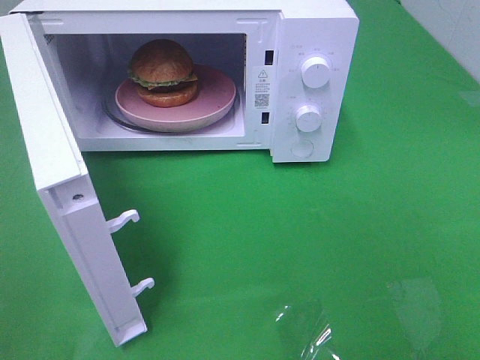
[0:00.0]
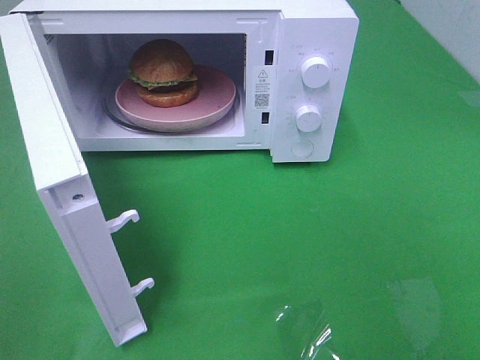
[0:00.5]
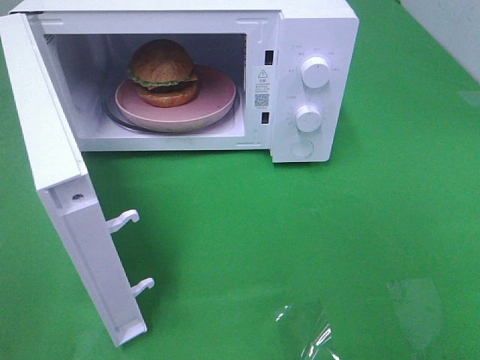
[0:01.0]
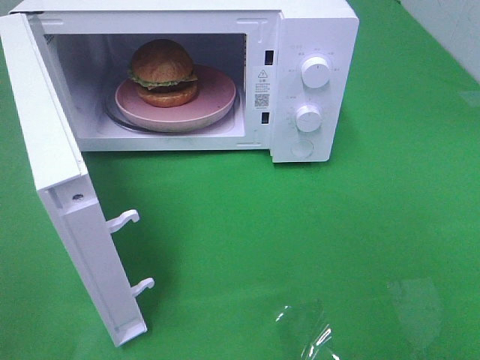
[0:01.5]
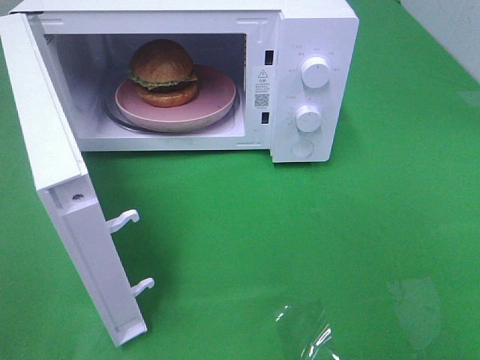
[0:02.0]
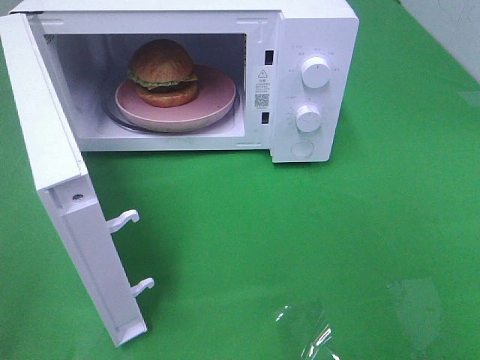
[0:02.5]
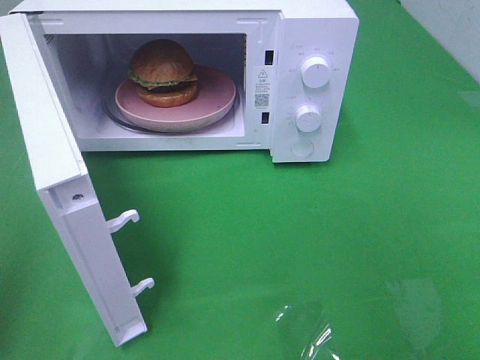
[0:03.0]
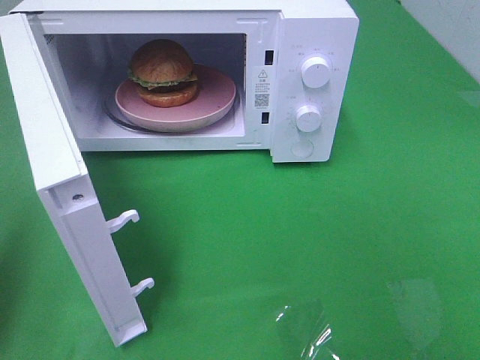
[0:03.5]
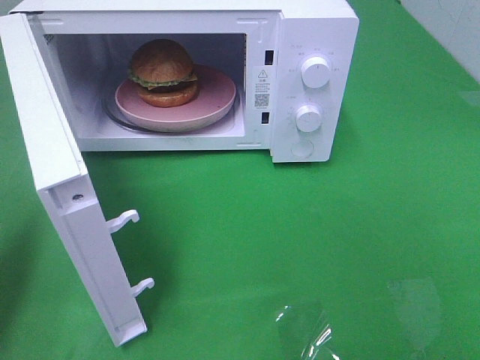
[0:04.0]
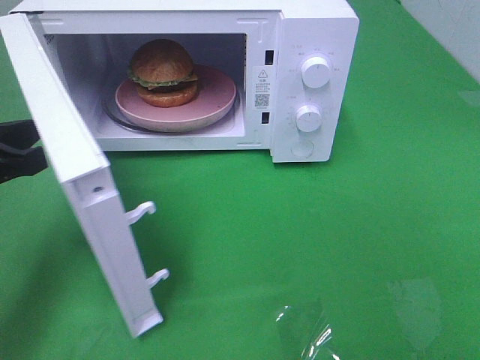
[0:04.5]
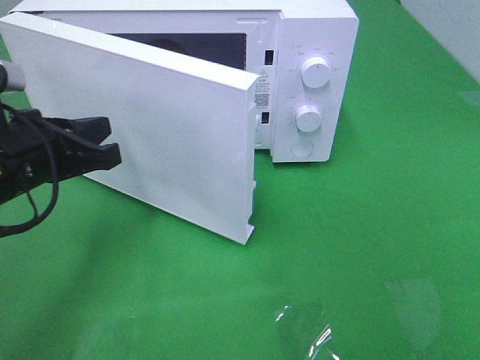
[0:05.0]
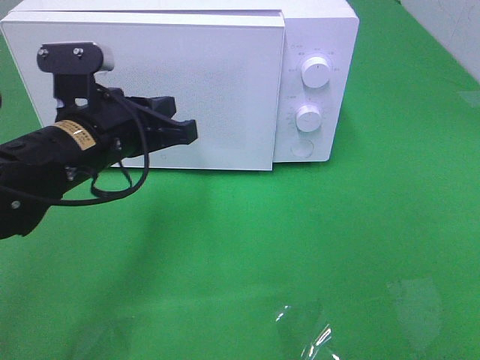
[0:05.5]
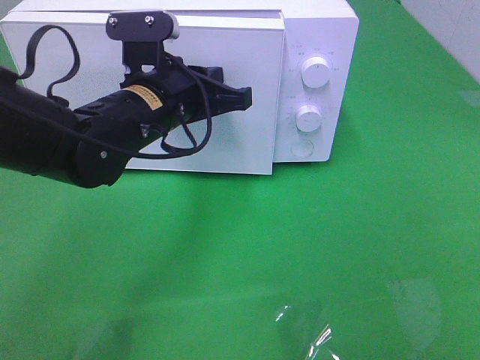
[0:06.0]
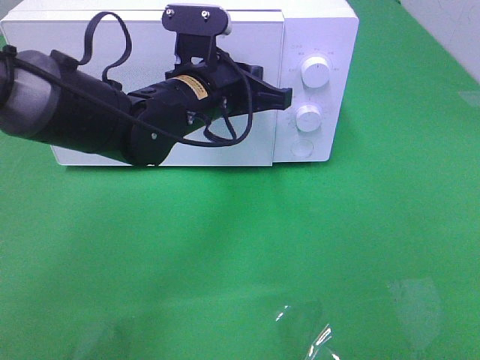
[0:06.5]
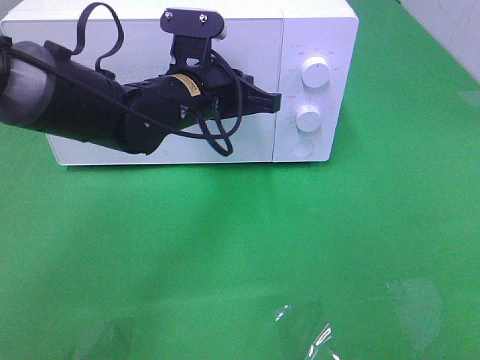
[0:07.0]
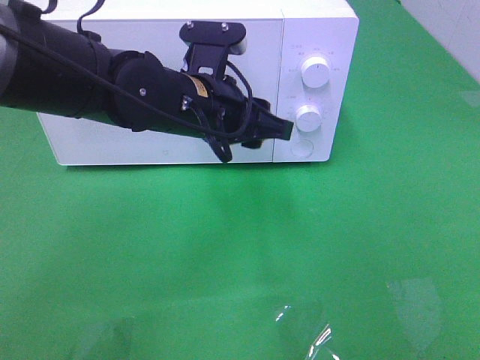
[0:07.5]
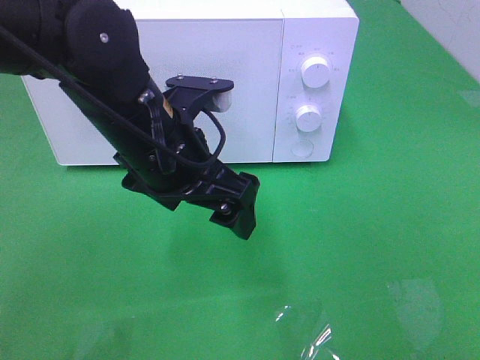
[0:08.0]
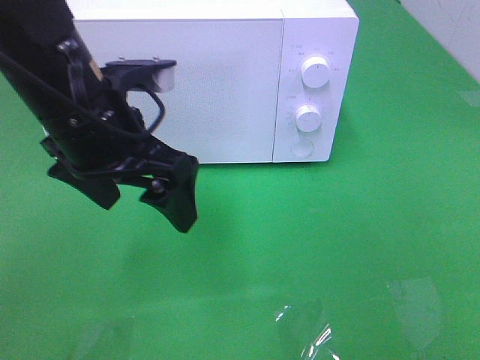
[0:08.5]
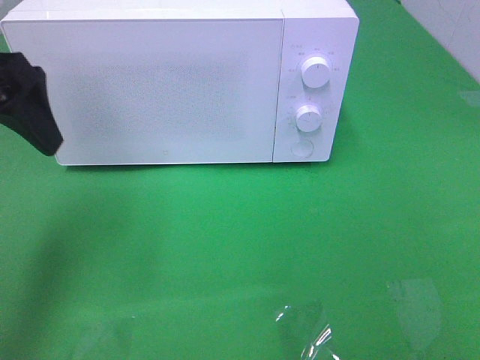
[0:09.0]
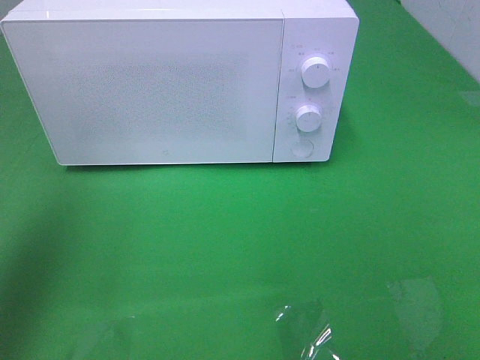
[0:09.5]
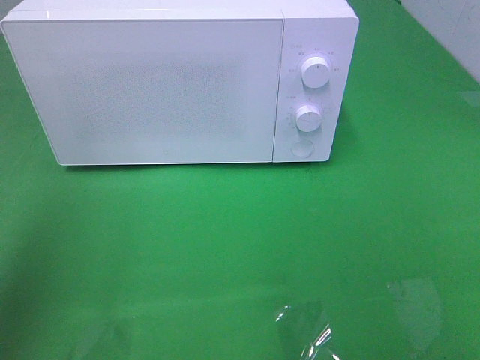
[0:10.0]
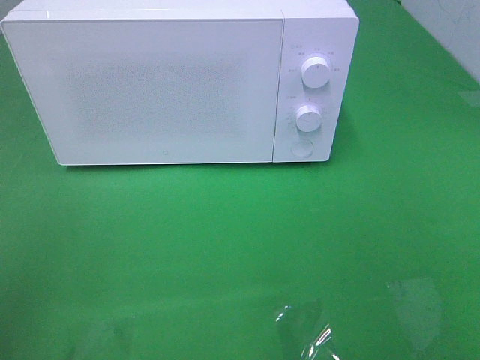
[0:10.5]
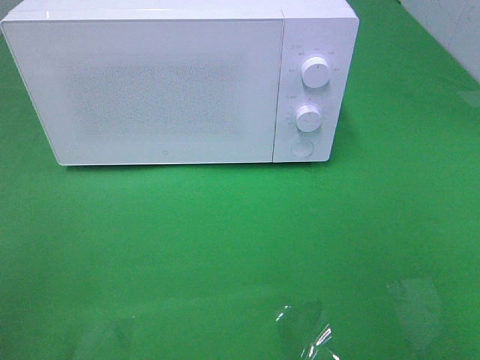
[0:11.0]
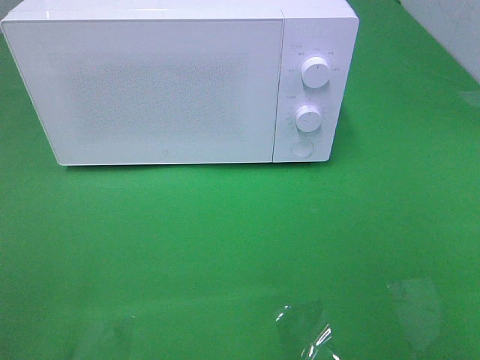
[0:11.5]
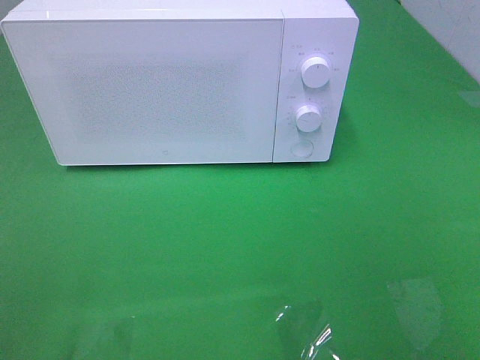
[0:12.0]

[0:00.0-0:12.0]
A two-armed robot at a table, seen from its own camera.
Task of the whole recording: Heat the burger.
Step, 0:00.0 to 0:07.5: Left hand: close the microwave door.
0:02.0 to 0:04.0: The left gripper moves forward, approximately 20 cm, and closes up.
0:04.0 to 0:06.0: The left gripper travels to the right and forward by roughly 25 cm.
0:06.0 to 0:08.0: The left gripper is displaced backward by roughly 5 cm, and opens up.
0:08.0 to 0:10.0: The left gripper moves to the left, upward and backward, approximately 35 cm.
0:10.0 to 0:12.0: The left gripper goes some 20 cm backward and downward.

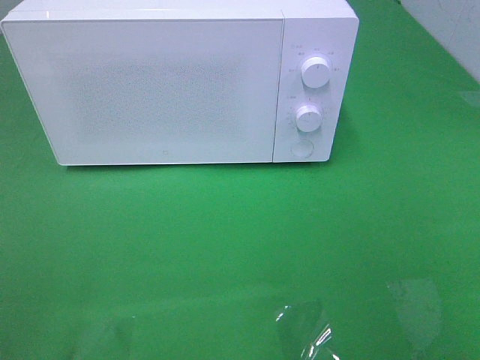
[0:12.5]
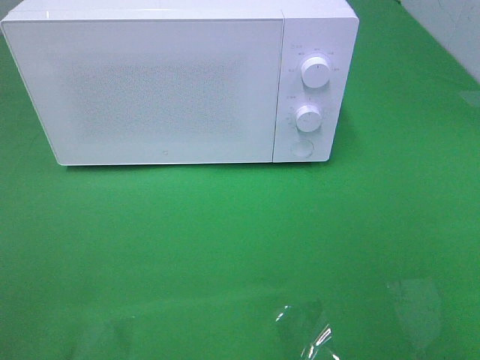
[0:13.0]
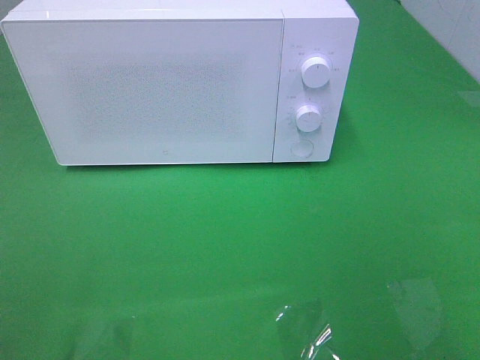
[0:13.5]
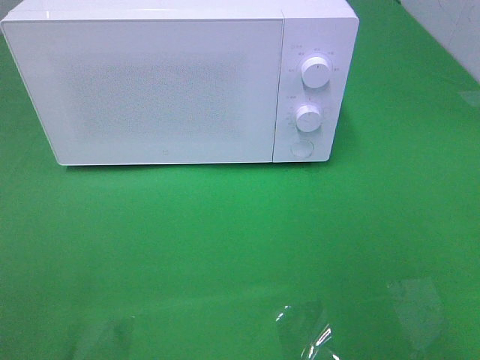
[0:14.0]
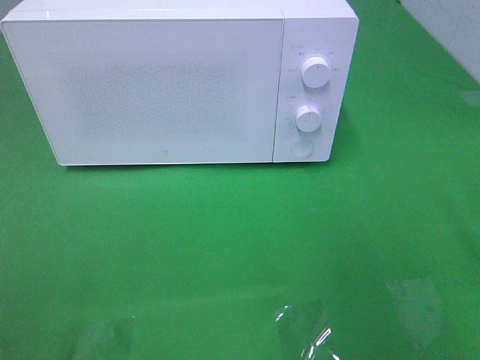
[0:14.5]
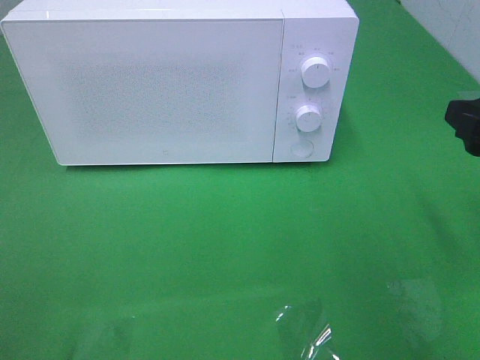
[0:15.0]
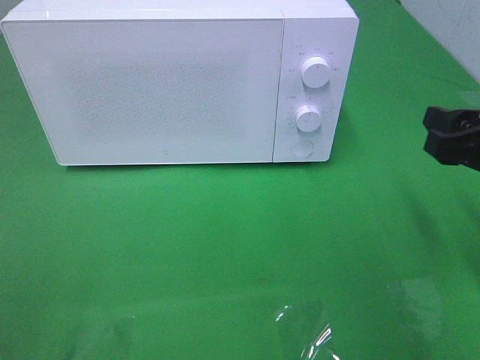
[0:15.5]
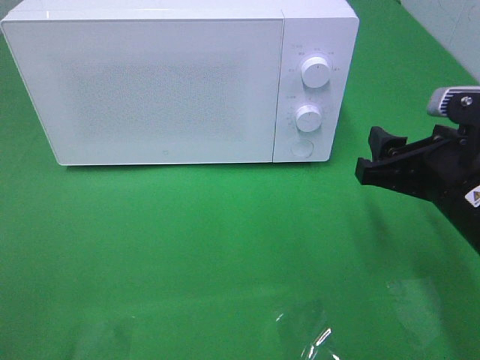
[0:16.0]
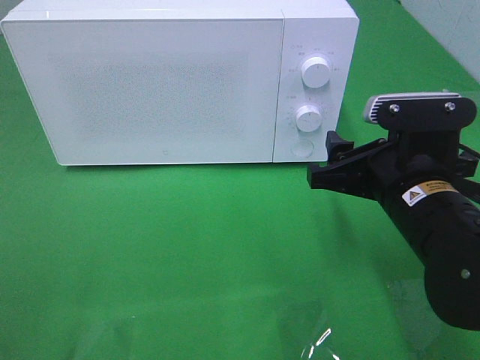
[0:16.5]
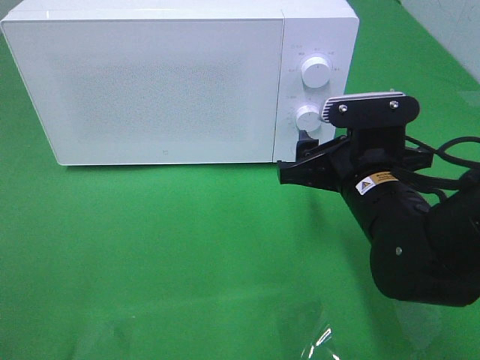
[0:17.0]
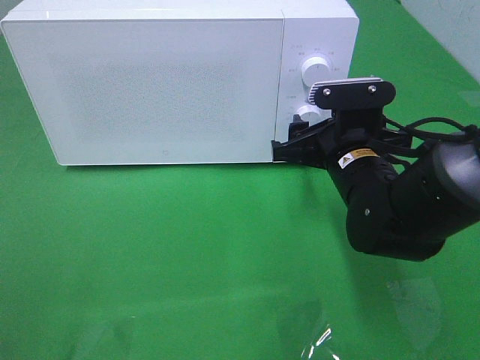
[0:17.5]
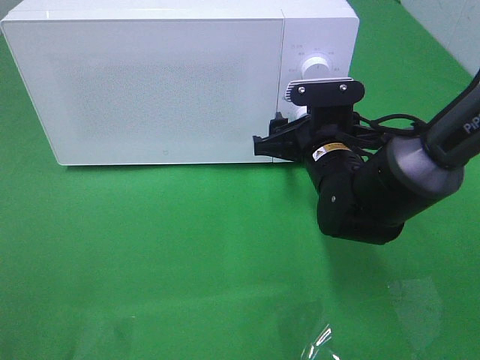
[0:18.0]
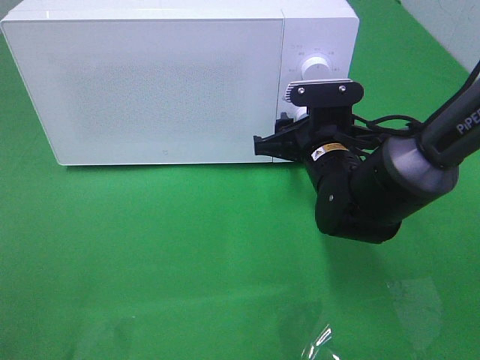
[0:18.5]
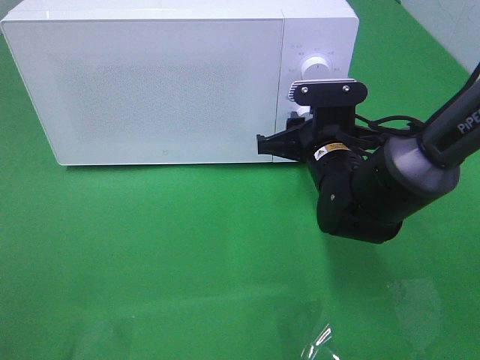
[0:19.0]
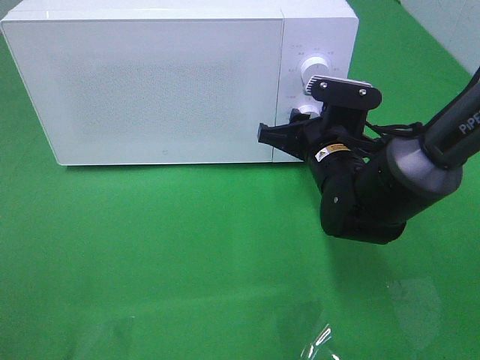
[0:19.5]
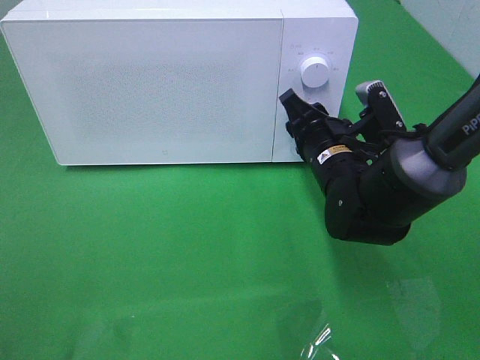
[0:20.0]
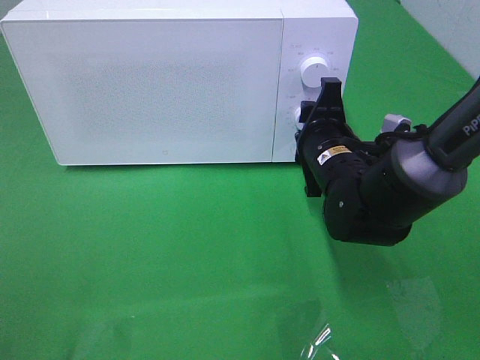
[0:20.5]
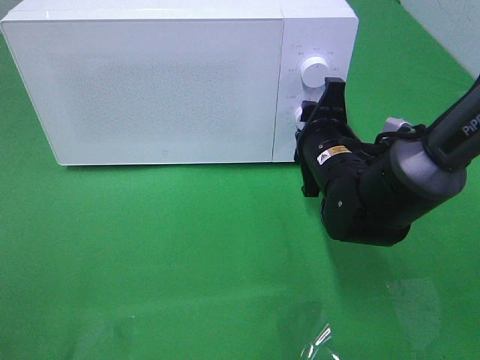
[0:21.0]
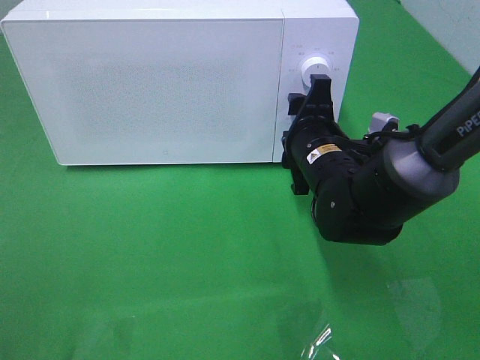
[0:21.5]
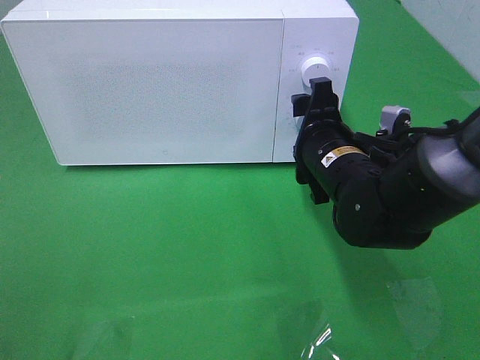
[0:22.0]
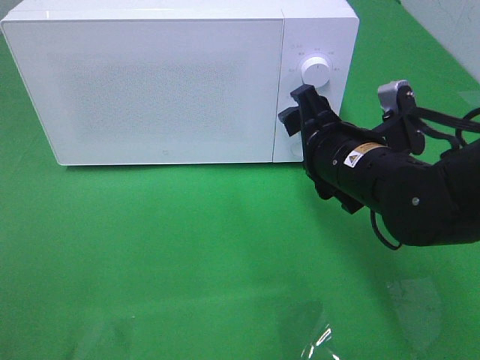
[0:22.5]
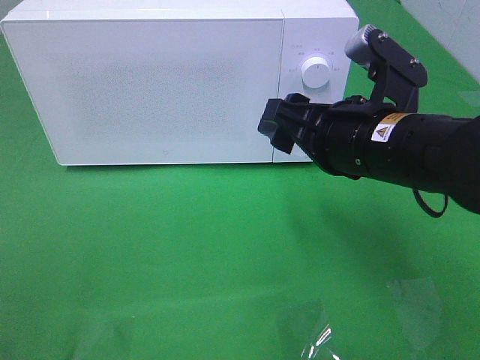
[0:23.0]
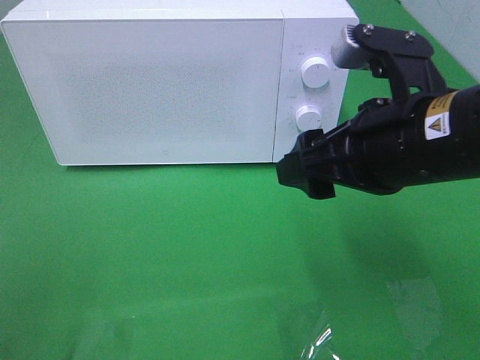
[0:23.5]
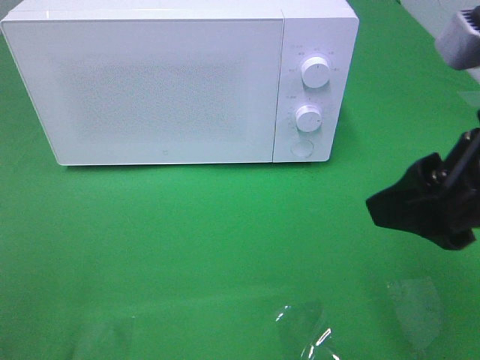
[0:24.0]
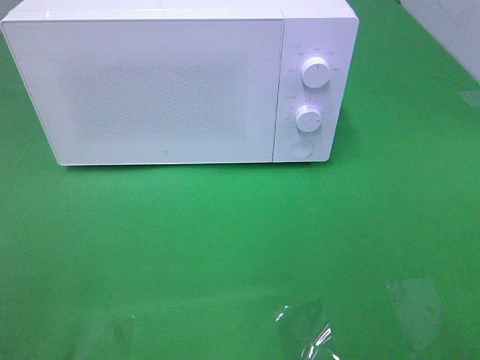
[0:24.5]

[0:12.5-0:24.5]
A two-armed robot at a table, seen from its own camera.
Task of the whole recording: Heat the burger.
Step, 0:12.5 to 0:22.0: Right hand: twist timer button.
0:14.5 to 0:16.5: The right gripper shifts approximately 20 cm downward and to the left.
0:16.5 to 0:18.5: The right gripper travels forward by roughly 10 cm.
0:20.5 to 0:22.5: The right gripper heads backward, covering approximately 5 cm, and opens.
0:22.5 to 0:24.5: The right gripper travels backward, upward and to the right by approximately 25 cm.

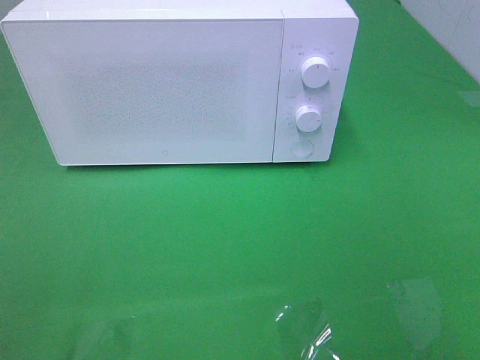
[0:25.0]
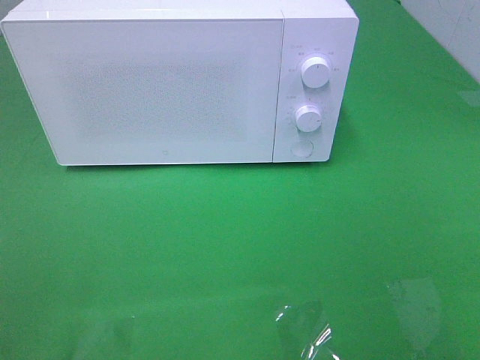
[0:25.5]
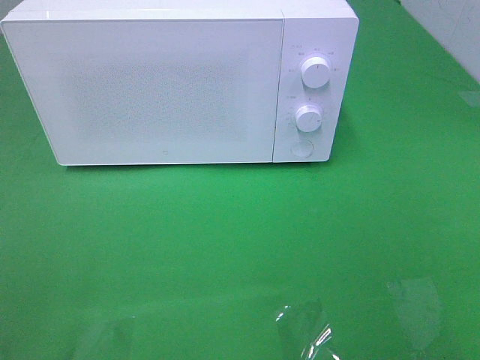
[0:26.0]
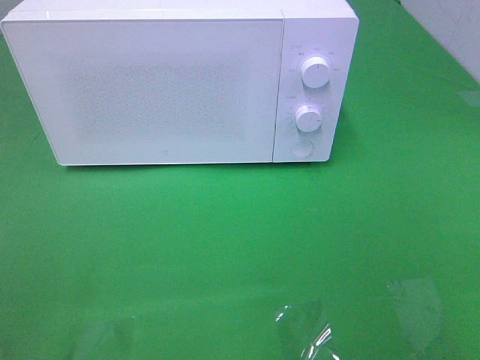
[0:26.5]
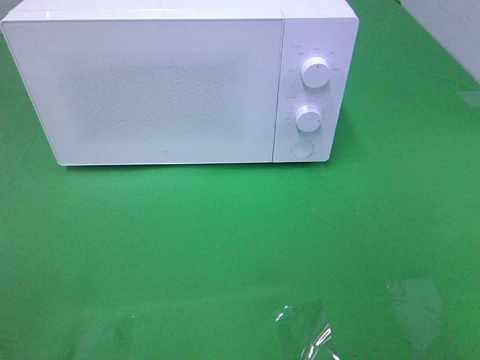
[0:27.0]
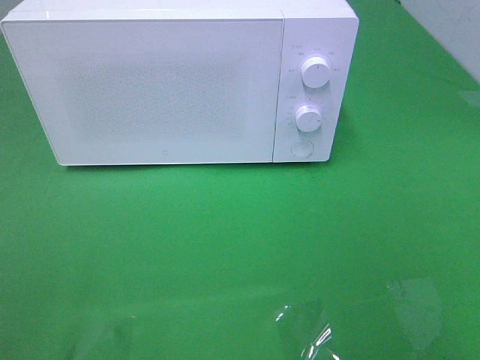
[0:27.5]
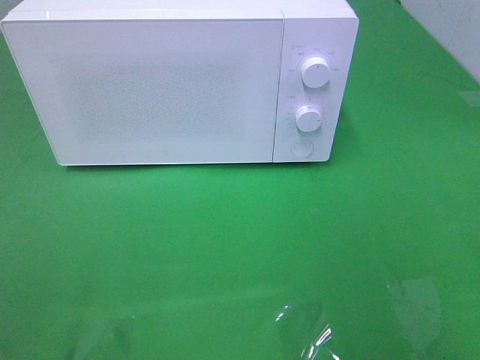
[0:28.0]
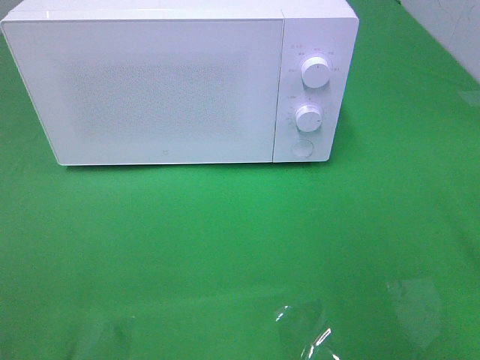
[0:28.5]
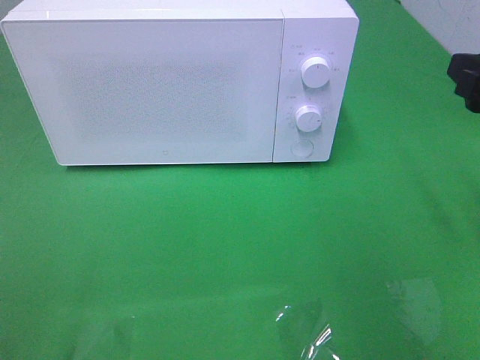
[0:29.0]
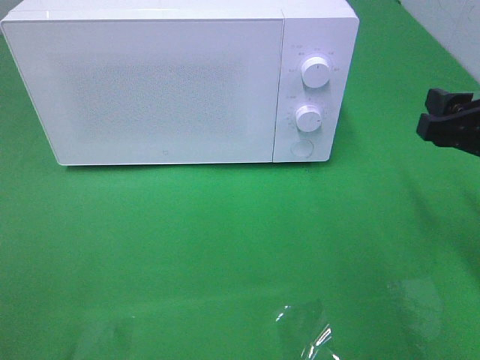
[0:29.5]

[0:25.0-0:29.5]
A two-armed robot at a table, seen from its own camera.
Task of the whole recording: Heat the burger.
0:27.0 to 0:29.5: The right gripper moves forward, approximately 20 cm.
